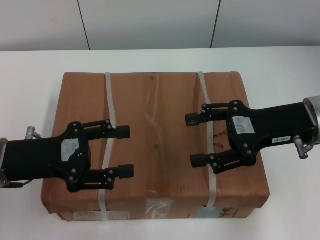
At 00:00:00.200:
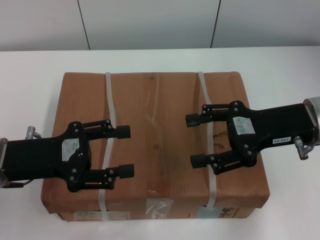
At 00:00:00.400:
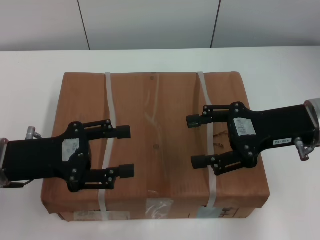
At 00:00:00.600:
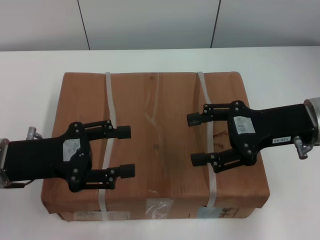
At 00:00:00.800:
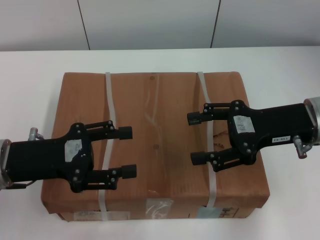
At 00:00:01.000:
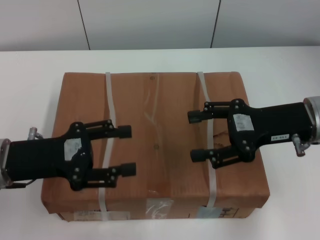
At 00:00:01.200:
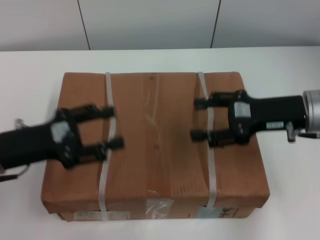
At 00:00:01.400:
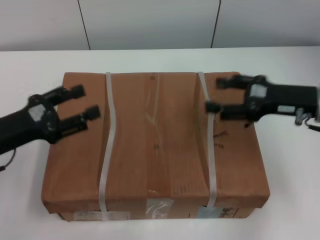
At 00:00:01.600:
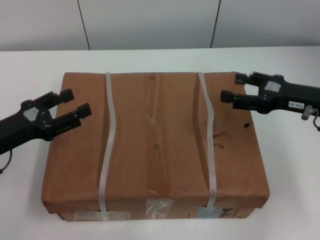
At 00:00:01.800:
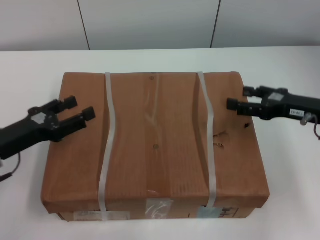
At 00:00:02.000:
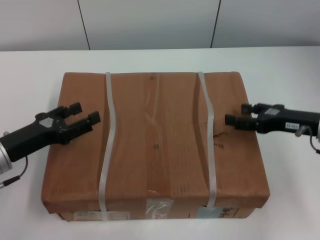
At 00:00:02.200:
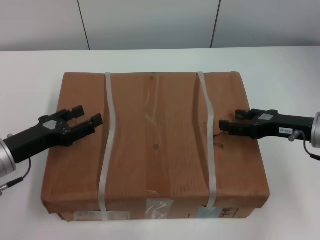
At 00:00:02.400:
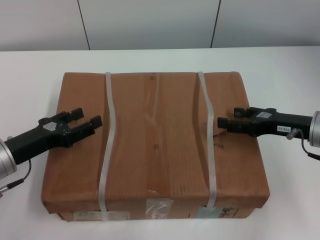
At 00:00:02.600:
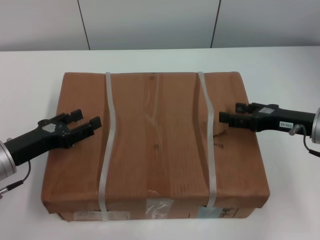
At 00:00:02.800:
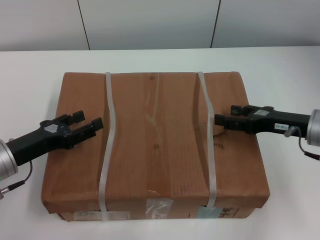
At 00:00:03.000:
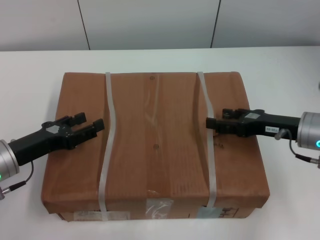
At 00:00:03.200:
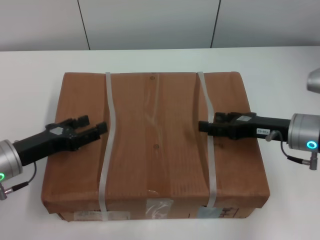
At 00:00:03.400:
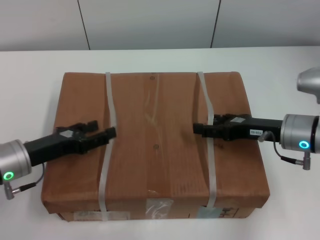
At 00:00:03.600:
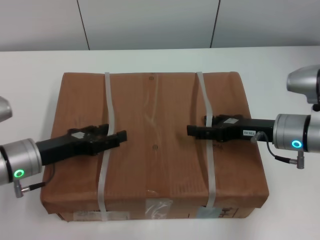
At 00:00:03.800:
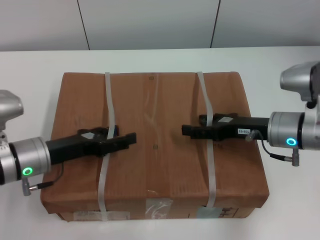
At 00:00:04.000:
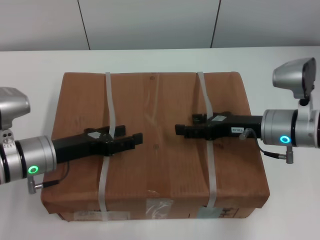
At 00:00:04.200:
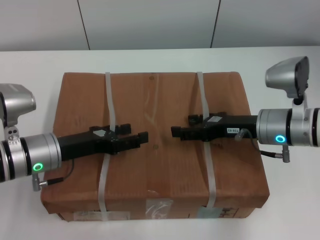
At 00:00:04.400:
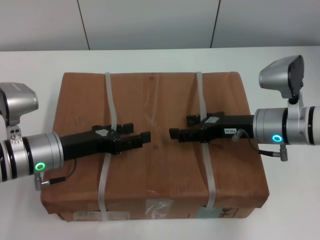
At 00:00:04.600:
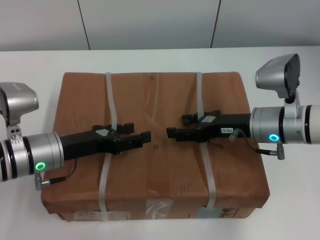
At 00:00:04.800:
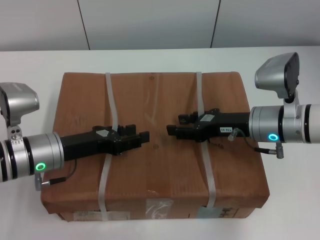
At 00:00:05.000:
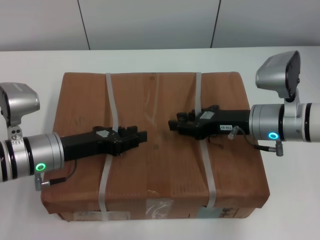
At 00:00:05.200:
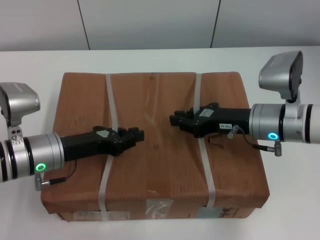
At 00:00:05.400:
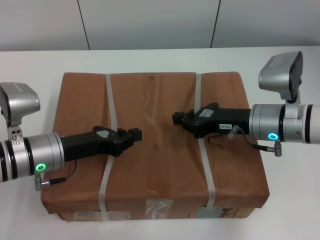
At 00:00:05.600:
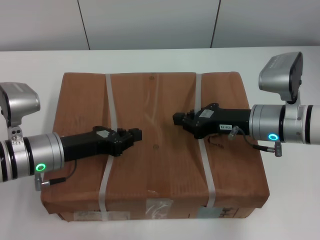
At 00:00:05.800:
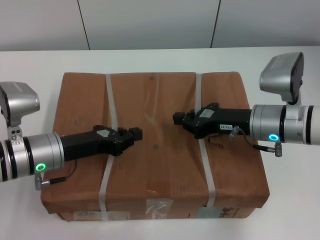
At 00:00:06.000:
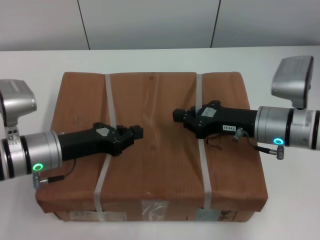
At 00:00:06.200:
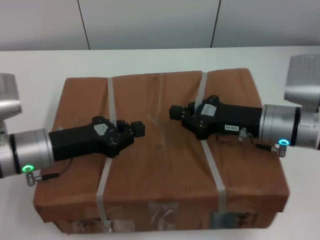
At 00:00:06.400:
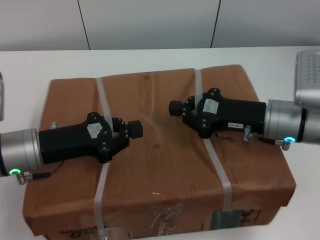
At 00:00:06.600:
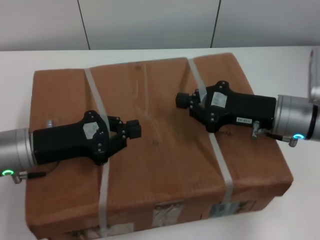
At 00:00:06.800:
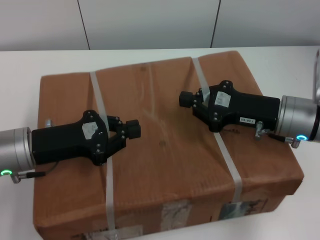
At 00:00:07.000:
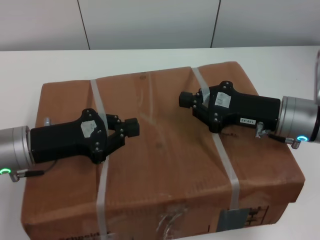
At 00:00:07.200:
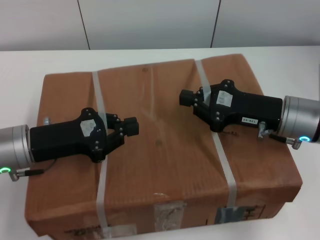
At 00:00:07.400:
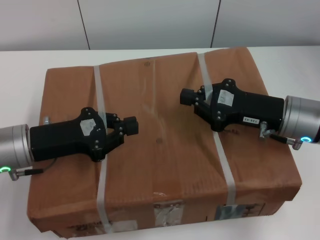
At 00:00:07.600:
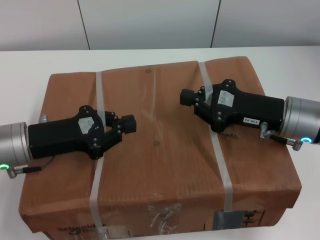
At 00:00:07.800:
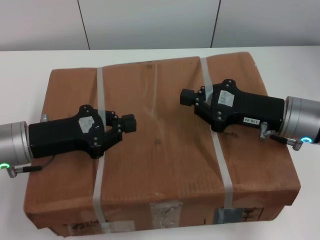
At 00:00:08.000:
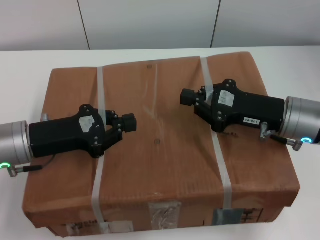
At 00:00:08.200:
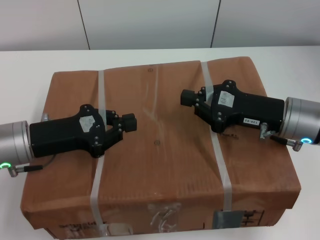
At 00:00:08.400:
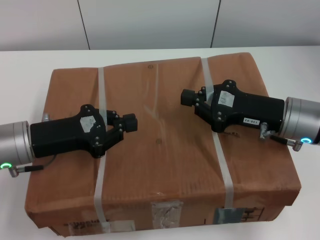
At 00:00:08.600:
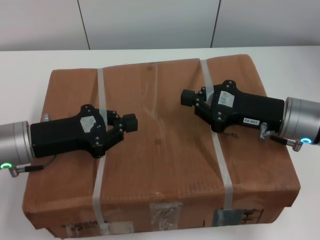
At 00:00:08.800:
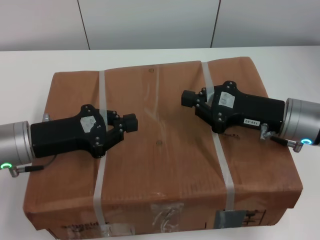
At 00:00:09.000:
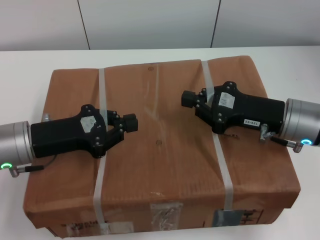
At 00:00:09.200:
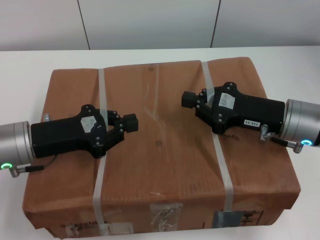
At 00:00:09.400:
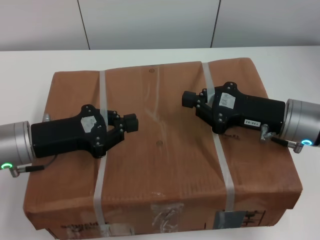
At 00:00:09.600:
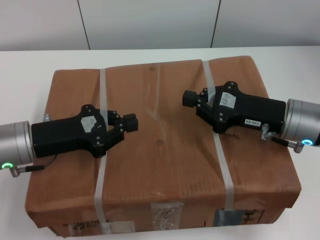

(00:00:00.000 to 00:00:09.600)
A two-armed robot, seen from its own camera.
Task of the whole recording: pick up the box from the table with both arms.
Step, 00:00:00.000 - 00:00:05.400: Grasp the bandage with left gripper.
Step, 00:00:00.000 - 00:00:05.400: Grasp the bandage with right gripper.
Step, 00:00:05.600 - 00:00:06.800: Lift the box with left gripper.
Step, 00:00:05.600 - 00:00:06.800: Lift the box with right gripper.
00:00:00.000 - 00:00:01.600: The right gripper is displaced to the right by some 5 cm. The left gripper shifts by roughly 5 cm.
00:00:01.600 - 00:00:03.200: The right gripper moves roughly 5 cm.
00:00:03.200 - 00:00:04.800: The left gripper is displaced to the right by roughly 5 cm, while the right gripper heads to the left, covering about 5 cm.
00:00:04.800 - 00:00:06.400: The left gripper closes up. Meanwhile the right gripper closes up.
00:00:08.000 - 00:00:09.600: Both grippers stay about where they are.
